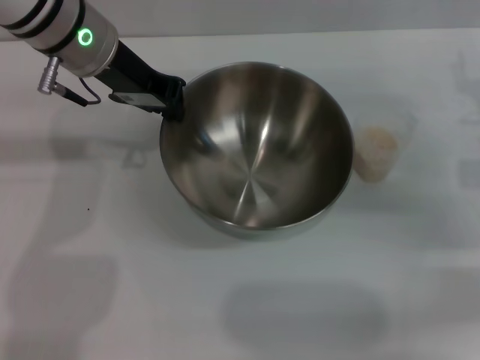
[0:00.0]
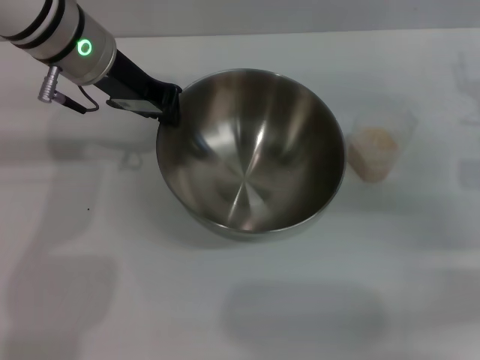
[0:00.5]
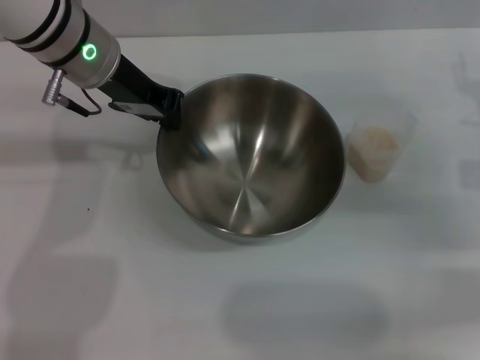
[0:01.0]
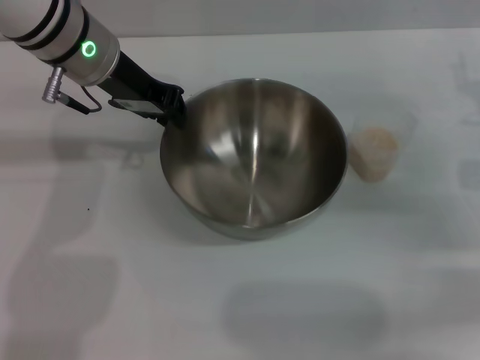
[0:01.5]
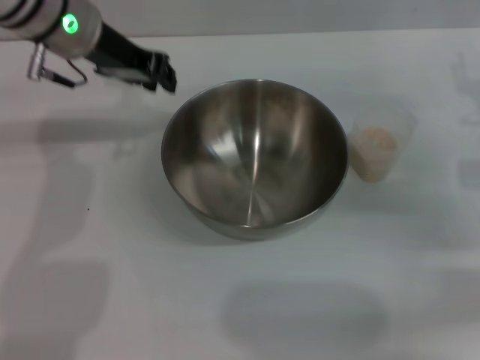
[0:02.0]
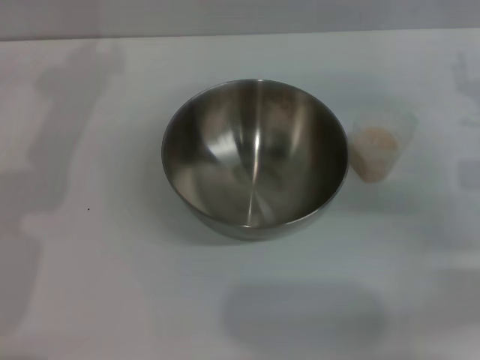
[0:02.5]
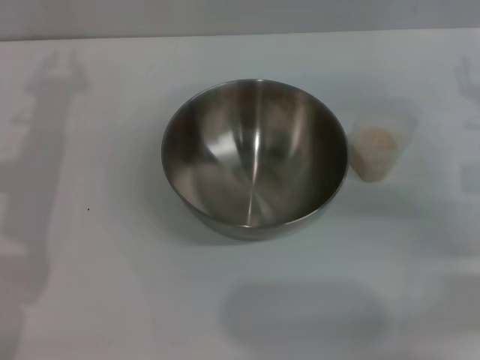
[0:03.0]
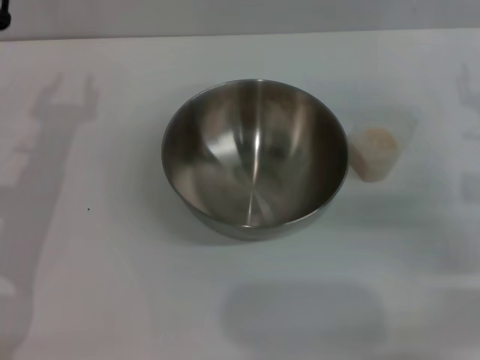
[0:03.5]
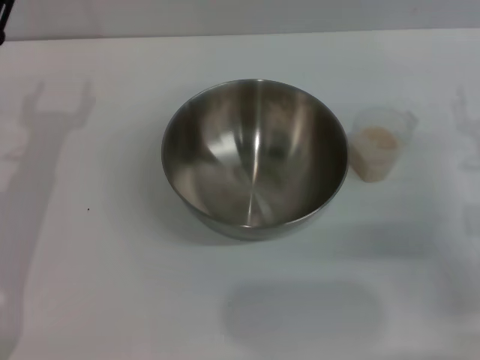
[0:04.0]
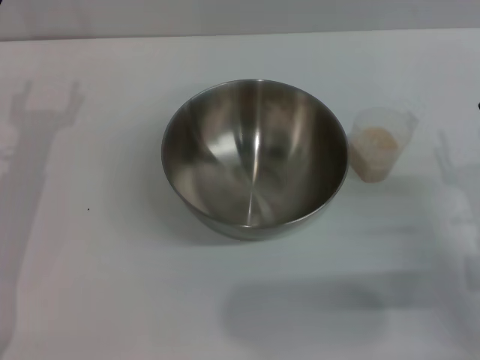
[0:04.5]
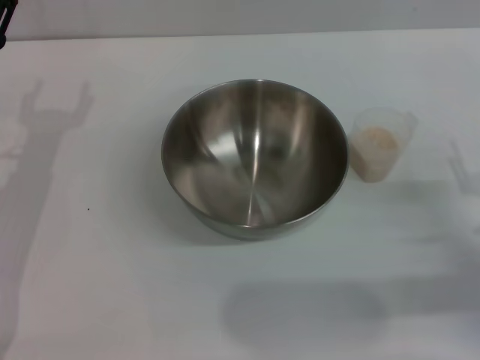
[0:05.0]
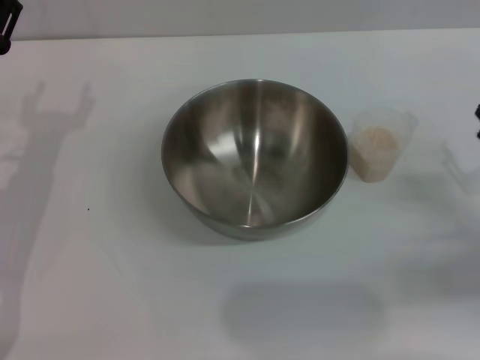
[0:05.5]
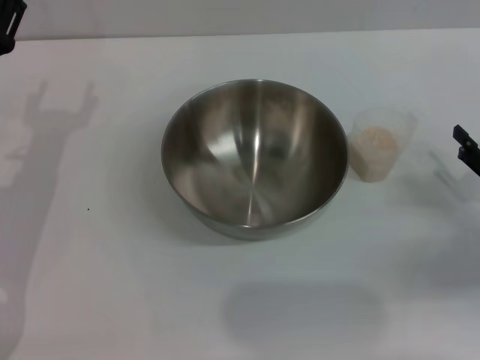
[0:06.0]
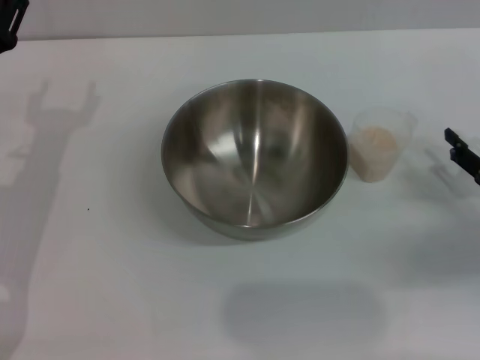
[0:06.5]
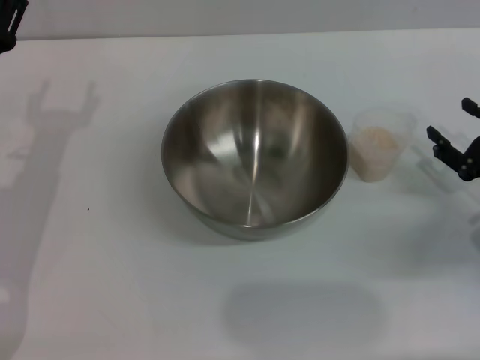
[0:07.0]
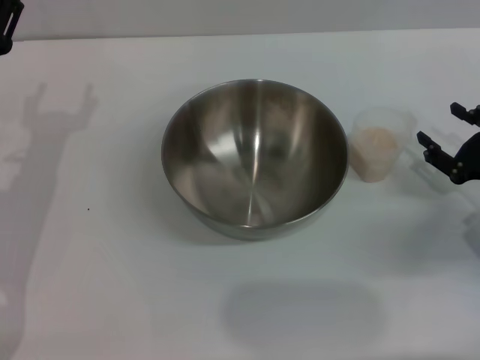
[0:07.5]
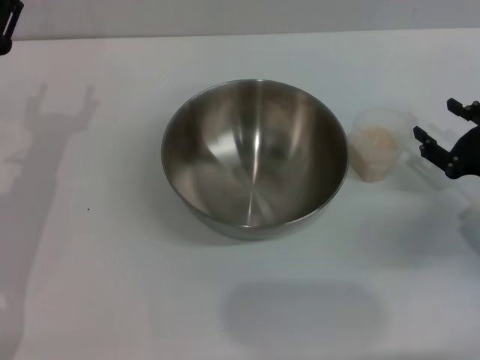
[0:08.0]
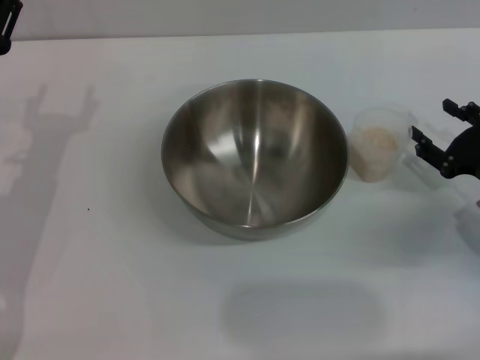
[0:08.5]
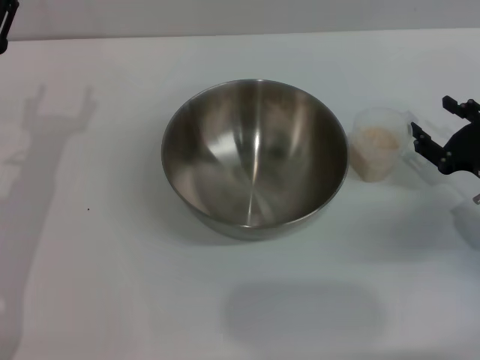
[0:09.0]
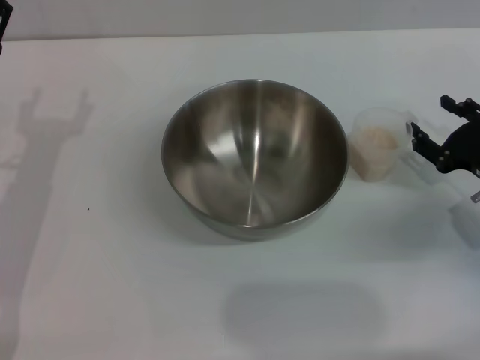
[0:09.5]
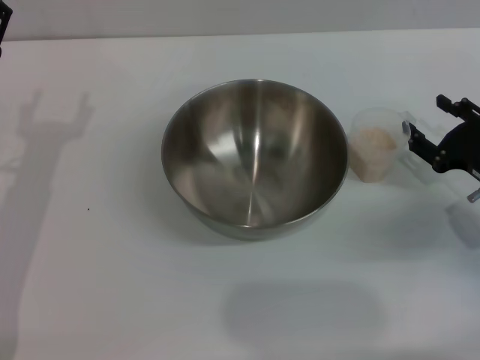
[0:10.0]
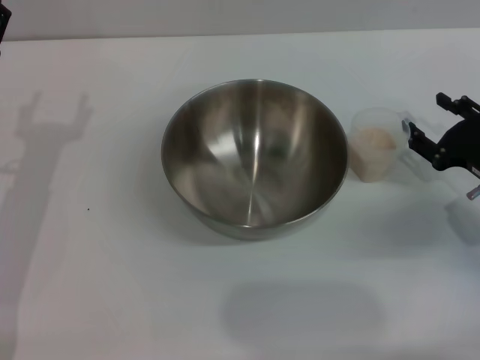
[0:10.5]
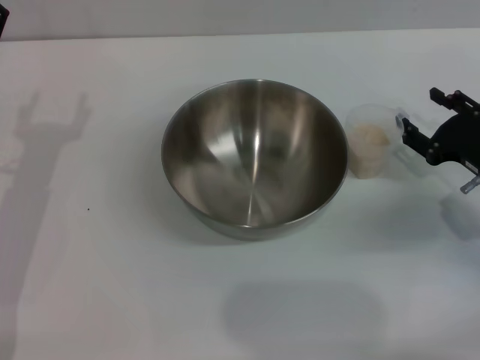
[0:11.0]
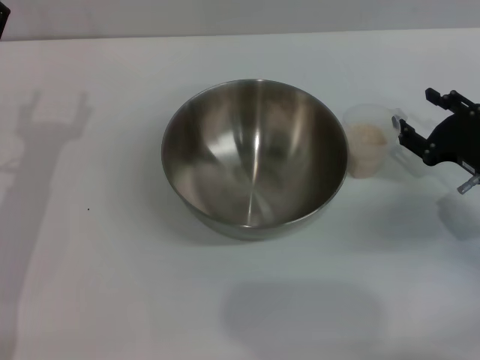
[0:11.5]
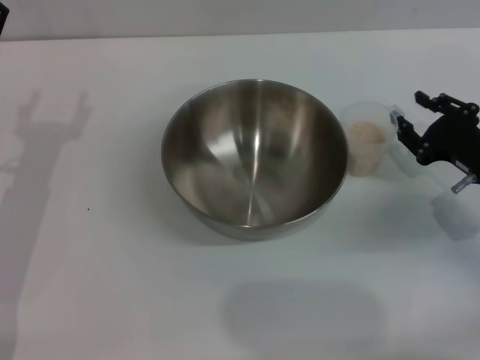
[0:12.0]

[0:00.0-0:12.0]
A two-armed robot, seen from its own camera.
Task of the whole recording: Place the bowl in the middle of the table with one hand and pour the rice from the grain cup into it with the other hand.
Step, 0:00.0 to 0:02.0: Place the bowl in the center of view with the left gripper.
0:00.0 to 0:02.0: The grippers move only a little.
0:02.0 to 0:04.0: The right gripper heads backward, covering approximately 5 cm. The left gripper heads downward, backward and to the left, covering roughly 20 cm, and opens up.
0:04.0 to 0:06.0: The right gripper shifts about 5 cm to the right.
0:06.0 to 0:10.0: The grippers make only small movements.
0:10.0 to 0:12.0: The grippers make only small movements.

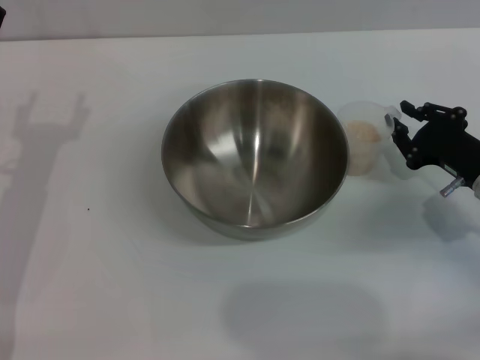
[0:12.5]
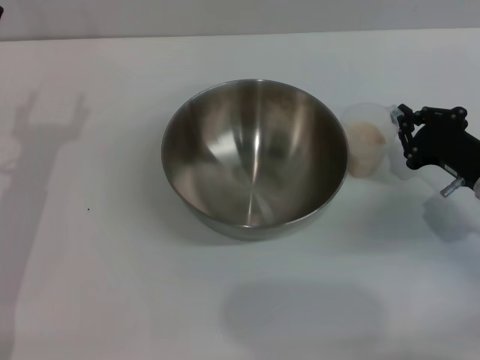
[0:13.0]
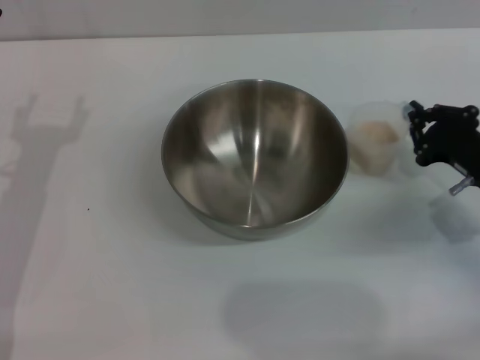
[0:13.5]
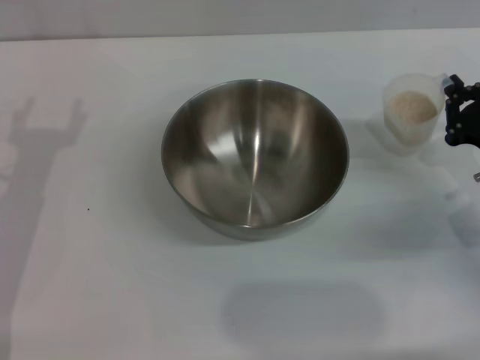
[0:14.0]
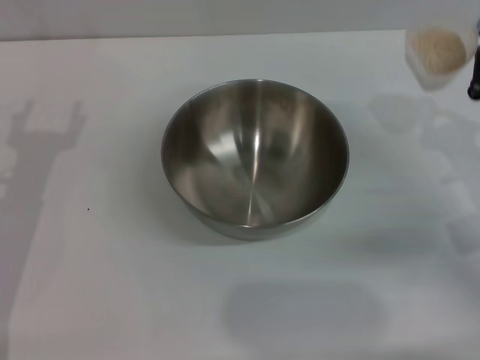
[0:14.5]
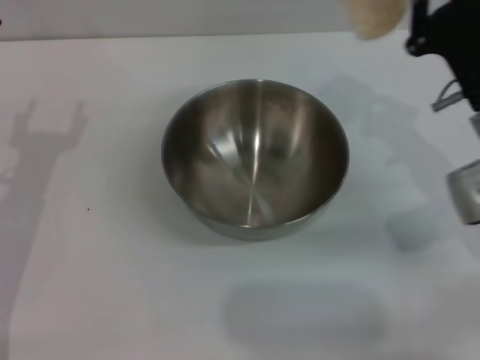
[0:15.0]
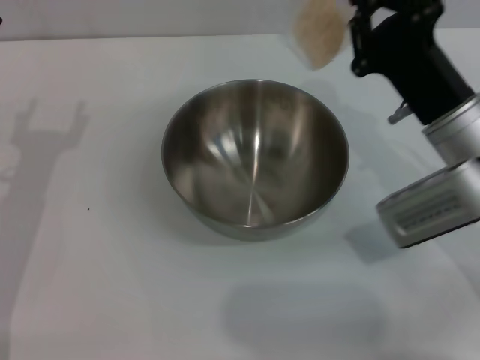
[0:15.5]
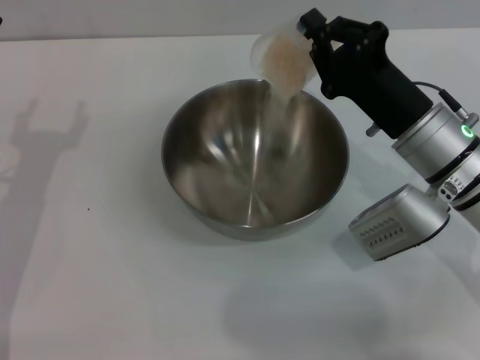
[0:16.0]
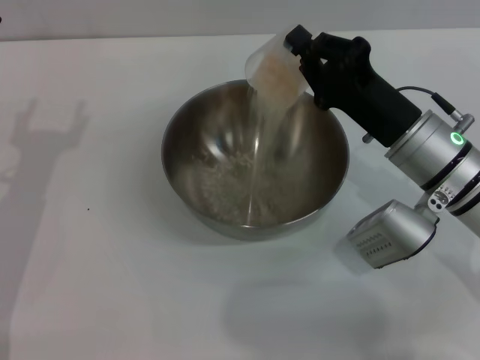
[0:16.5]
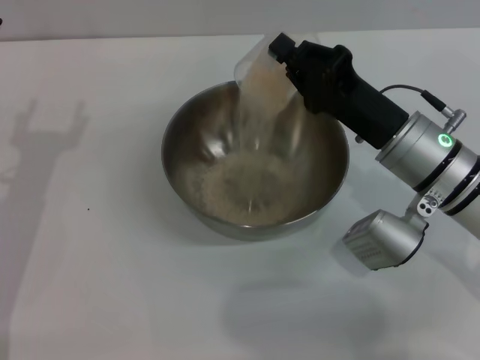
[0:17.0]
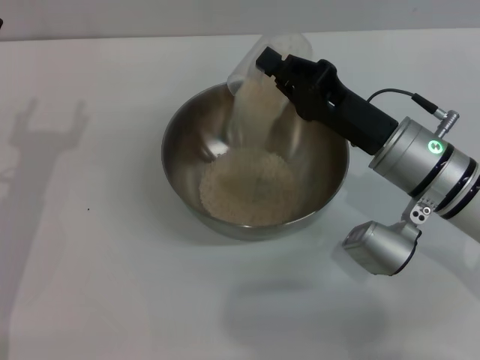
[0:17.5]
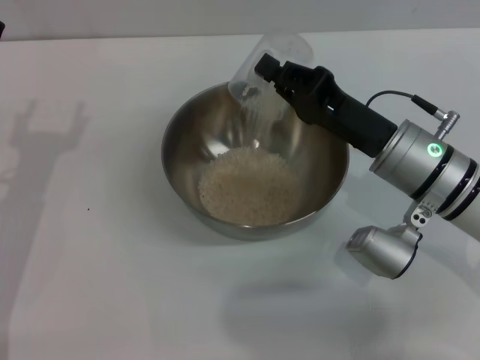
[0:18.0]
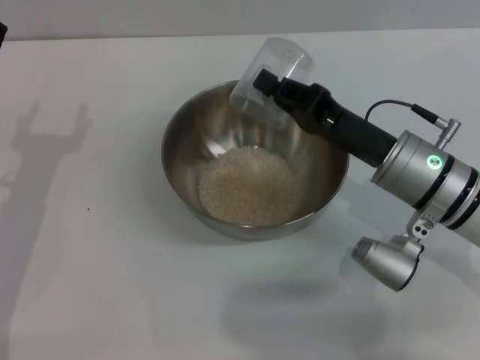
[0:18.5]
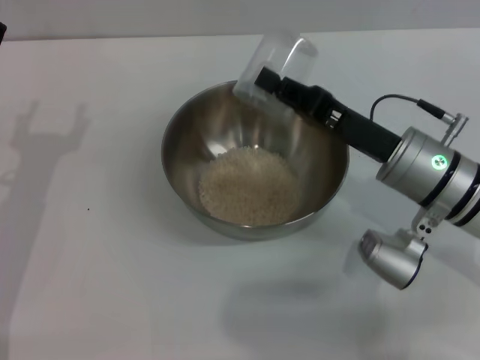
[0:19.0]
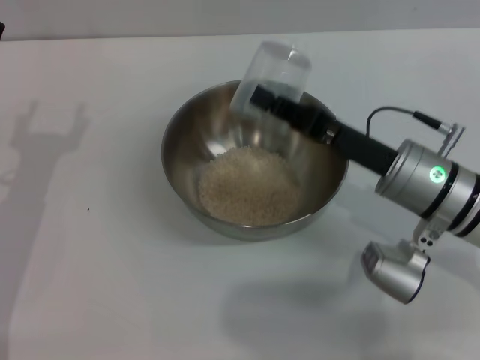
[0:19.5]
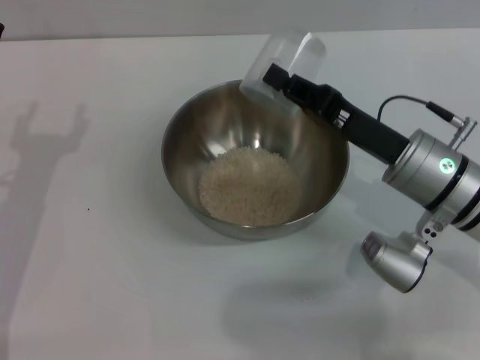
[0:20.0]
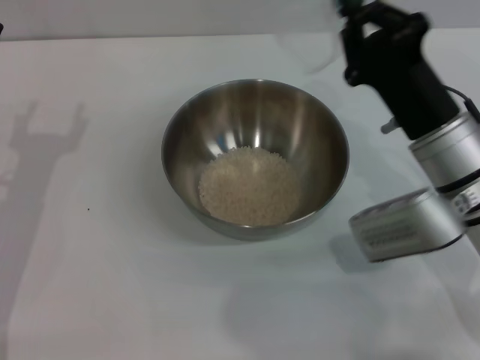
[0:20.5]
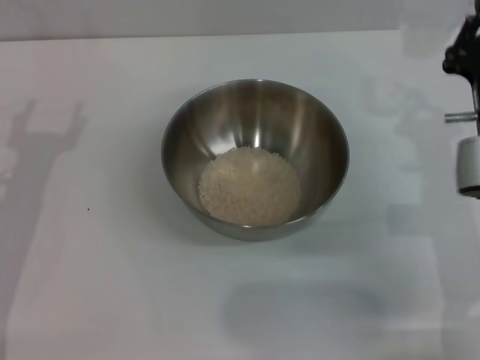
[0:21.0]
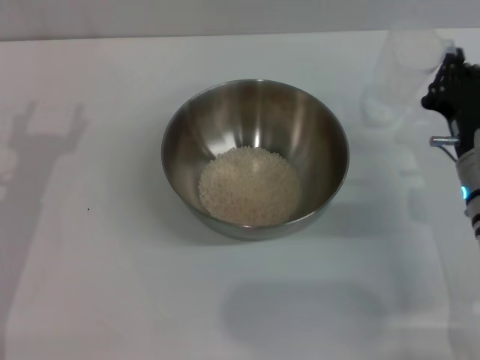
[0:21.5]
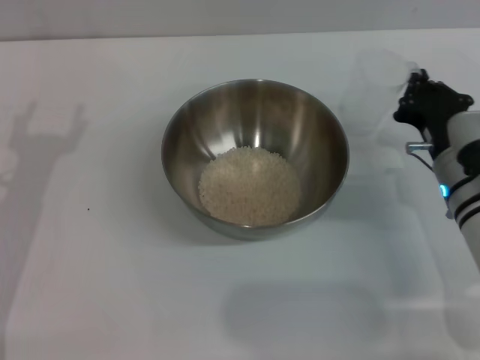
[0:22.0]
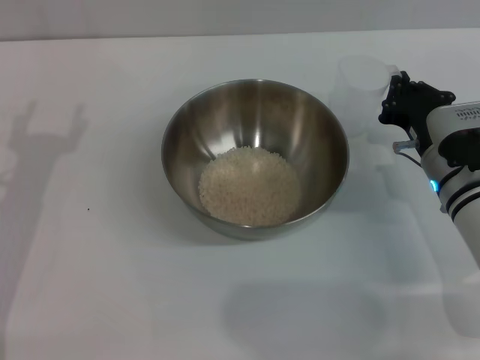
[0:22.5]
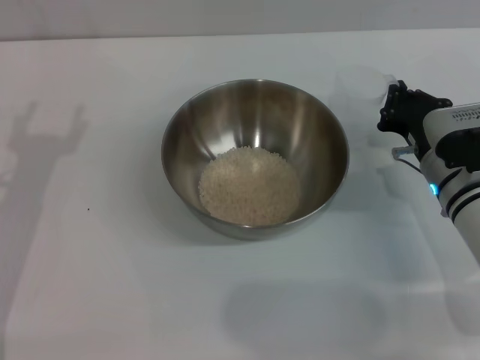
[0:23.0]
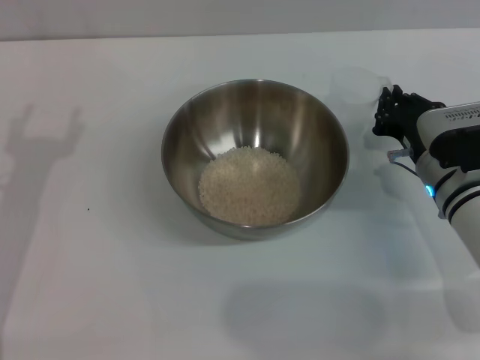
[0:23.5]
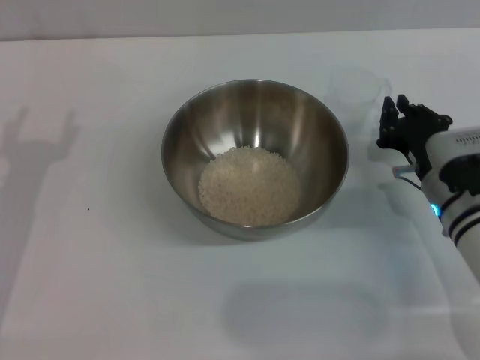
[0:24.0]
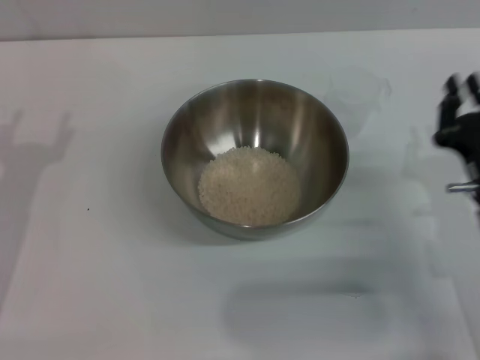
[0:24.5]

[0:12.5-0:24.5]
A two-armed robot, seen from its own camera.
Task of the whole recording: Place the bowl in the middle of the table with one hand and pour the rice from the grain cup into it with the other hand.
Step, 0:14.5 to 0:20.0: Pour the rice from the cup into the bowl with the right gripper.
Step, 0:20.5 to 0:24.0: Place the cup on the table with the right gripper.
0:12.5 to 0:14.5: The right gripper closes up.
0:14.5 to 0:16.5: The right gripper heads to the left, covering about 10 cm.
0:20.5 to 0:22.5: The right gripper is displaced downward by some 5 cm.
0:22.5 to 0:24.5: The right gripper travels backward by some 10 cm.

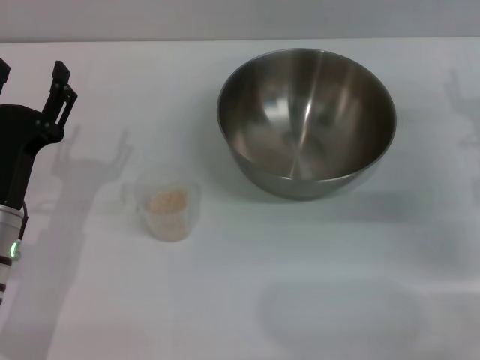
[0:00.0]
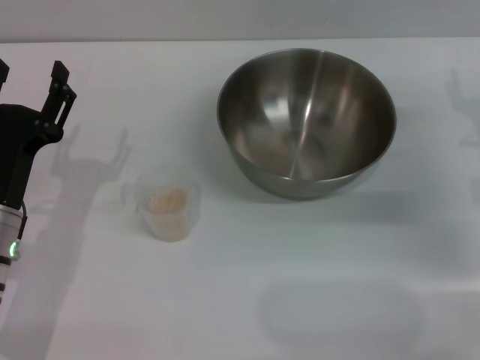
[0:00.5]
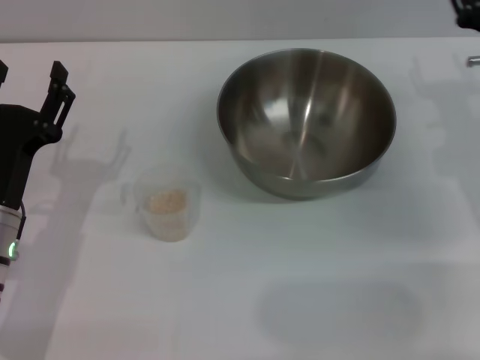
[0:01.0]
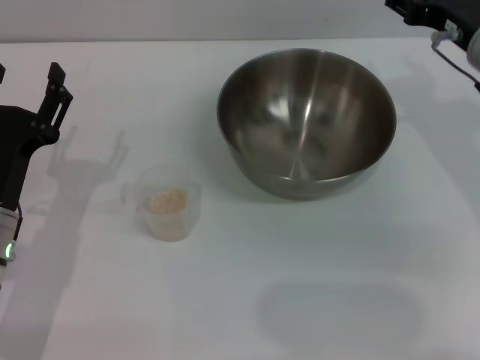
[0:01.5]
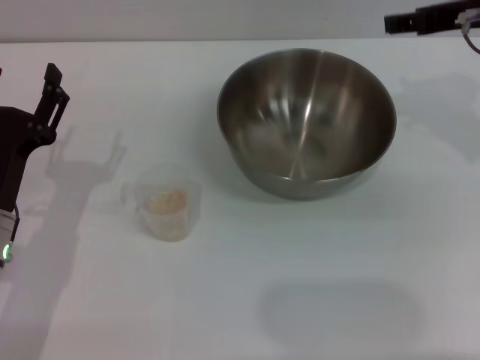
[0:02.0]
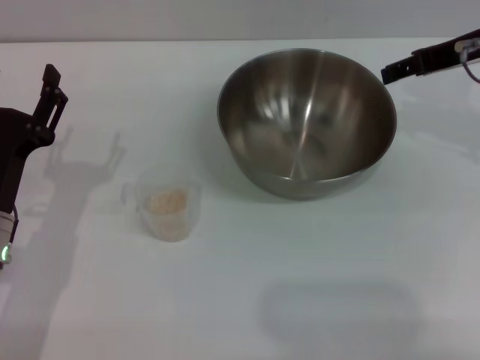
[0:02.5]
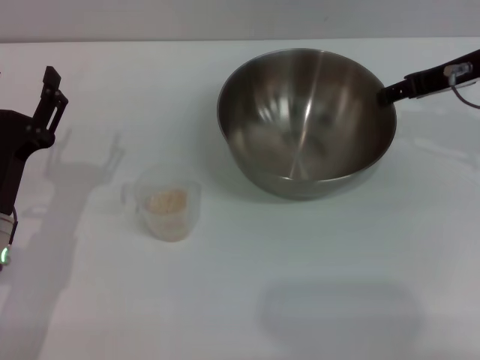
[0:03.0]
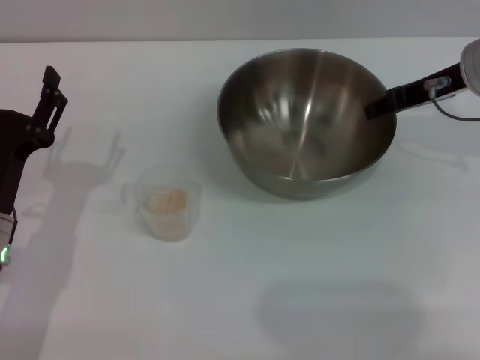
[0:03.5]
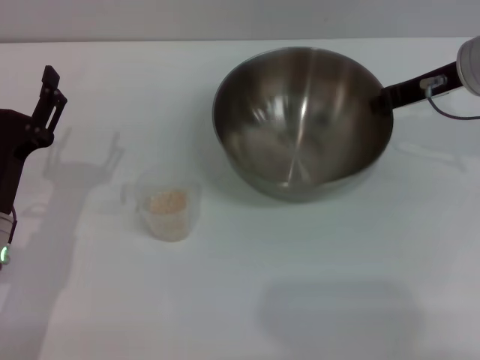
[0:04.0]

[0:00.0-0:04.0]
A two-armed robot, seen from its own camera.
Task of the whole recording: Place the bowl in the middle of the table with one hand and pour the rice from the grain cup into it with the other hand.
0:00.0 to 0:02.0: The right gripper moves upward, some 15 cm.
0:02.0 to 0:04.0: The right gripper moves downward, about 5 cm, and closes its fingers.
